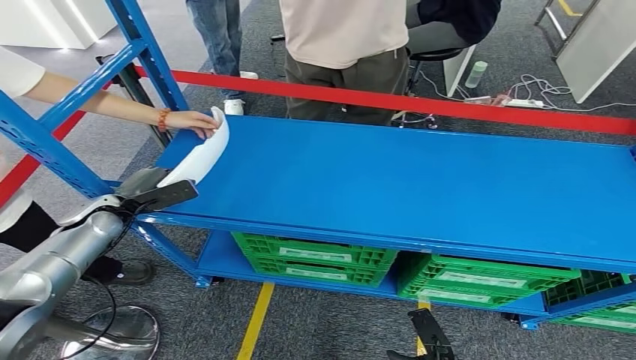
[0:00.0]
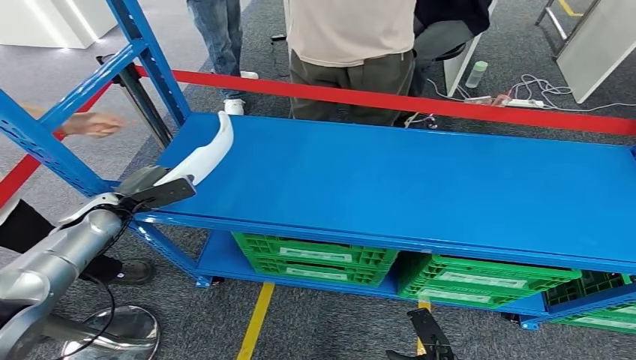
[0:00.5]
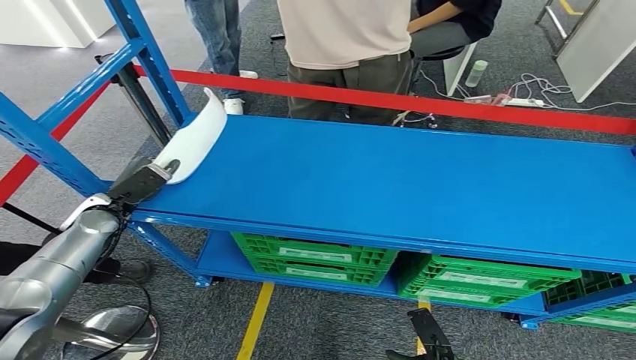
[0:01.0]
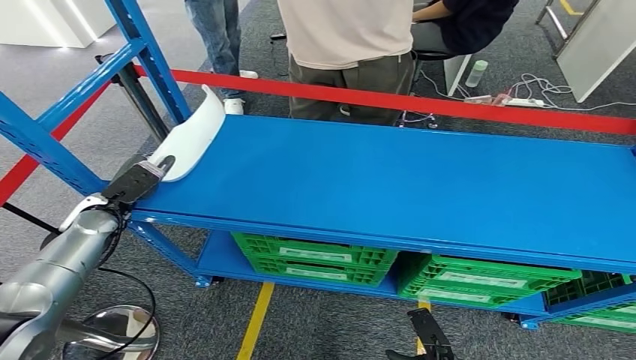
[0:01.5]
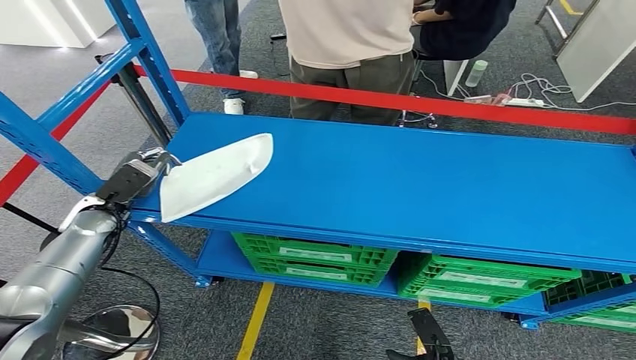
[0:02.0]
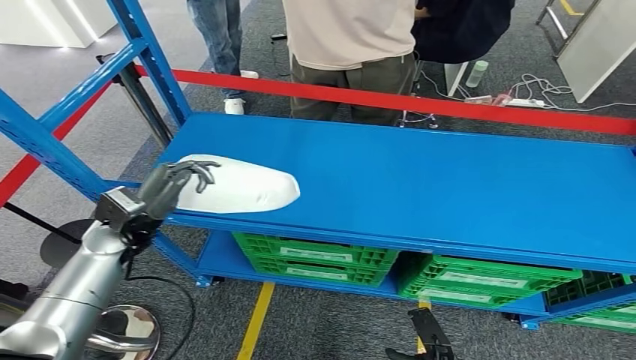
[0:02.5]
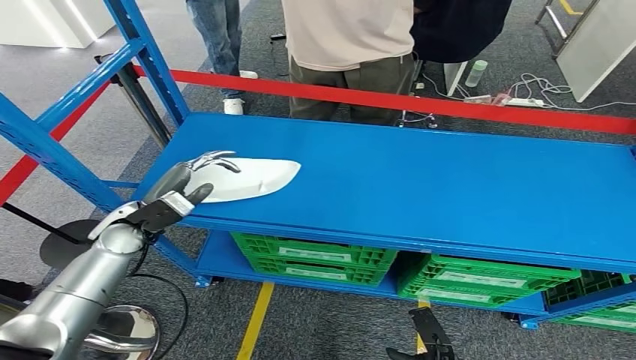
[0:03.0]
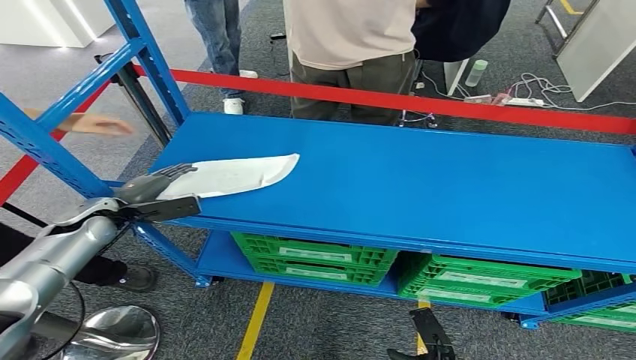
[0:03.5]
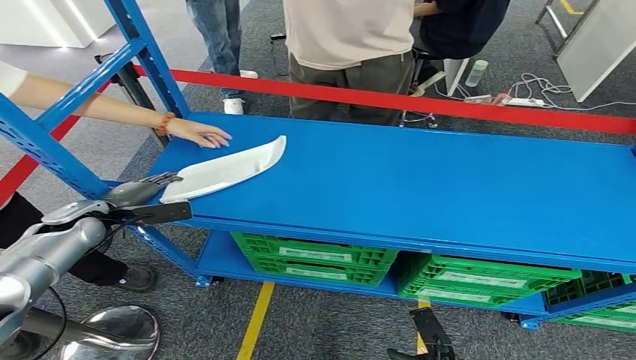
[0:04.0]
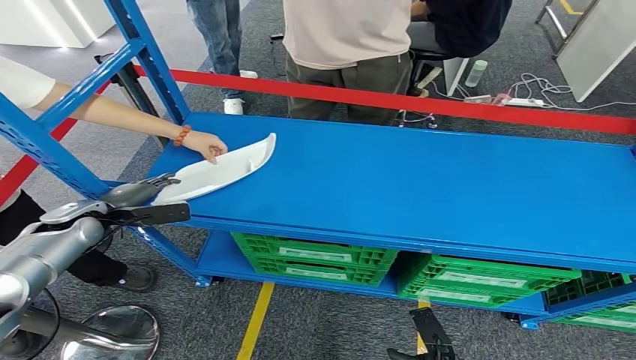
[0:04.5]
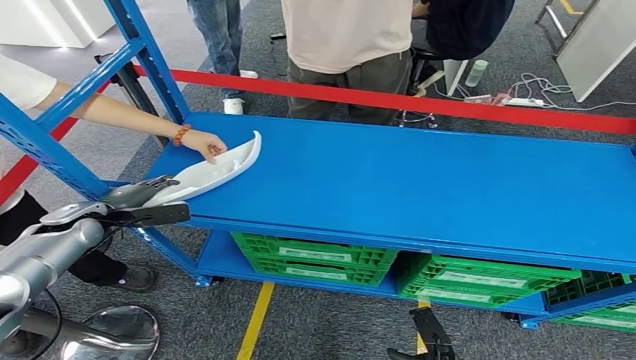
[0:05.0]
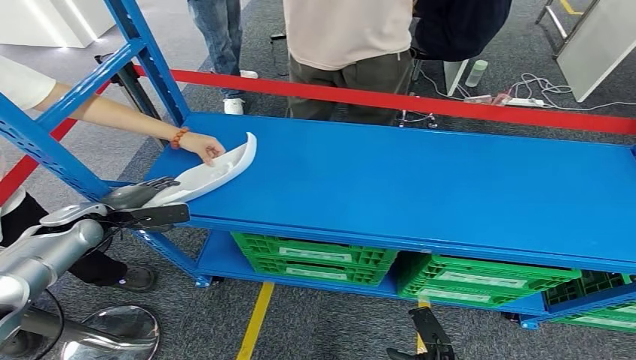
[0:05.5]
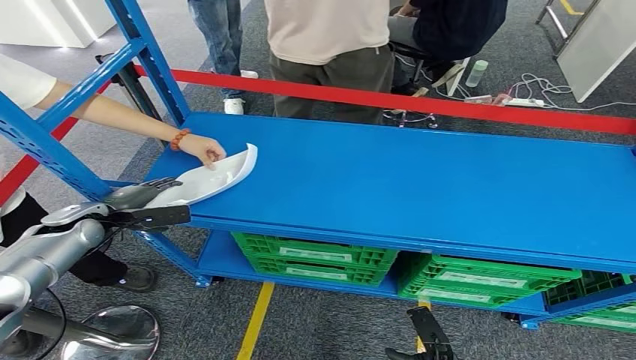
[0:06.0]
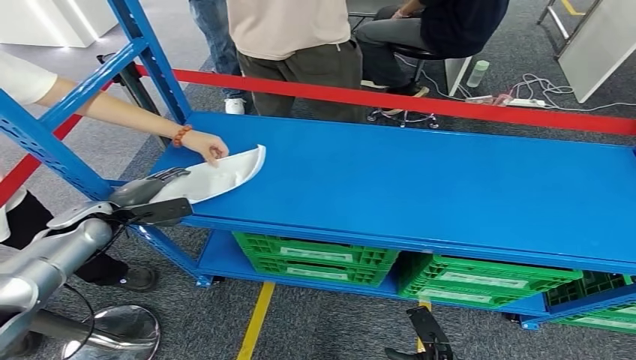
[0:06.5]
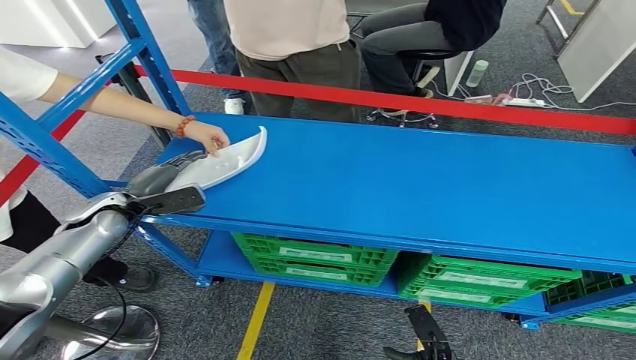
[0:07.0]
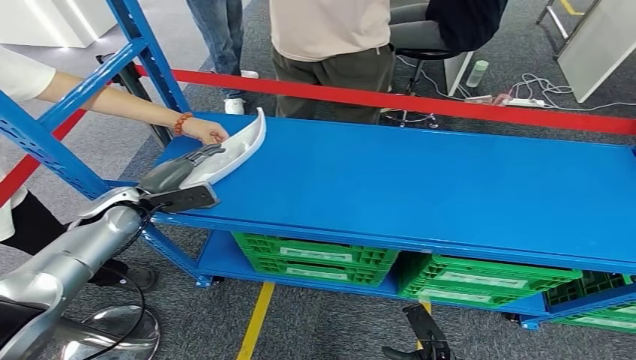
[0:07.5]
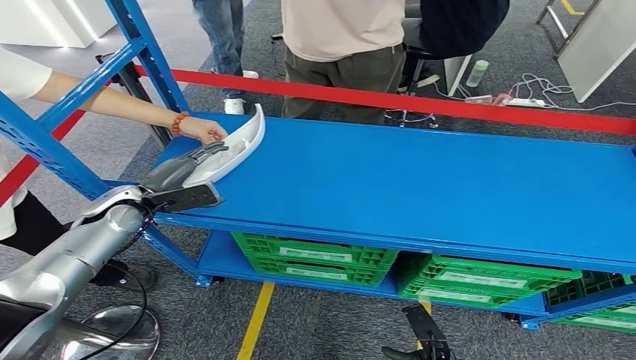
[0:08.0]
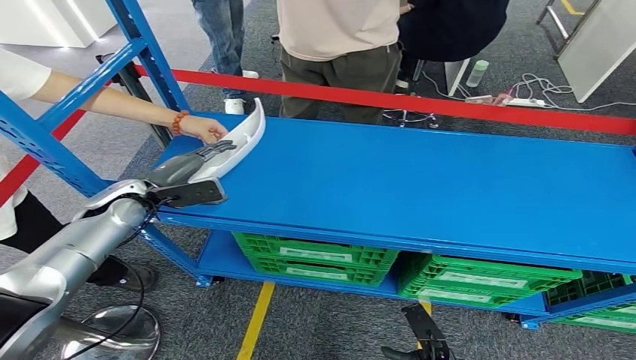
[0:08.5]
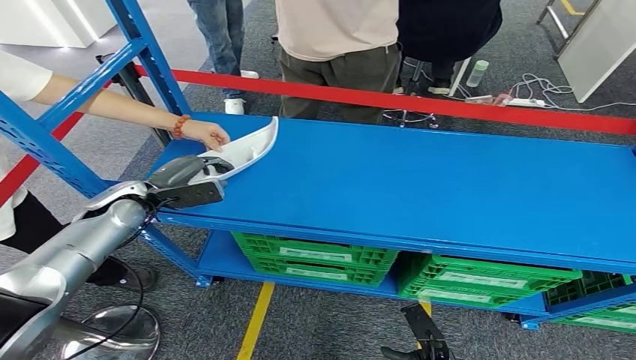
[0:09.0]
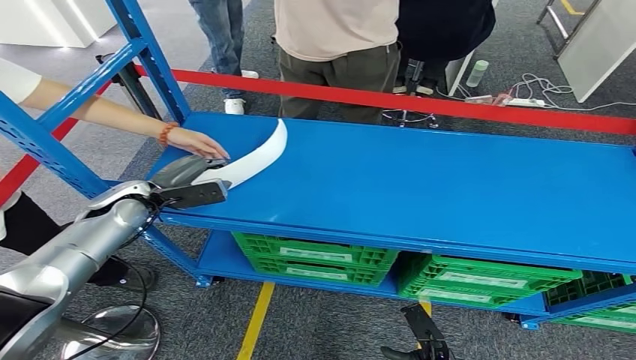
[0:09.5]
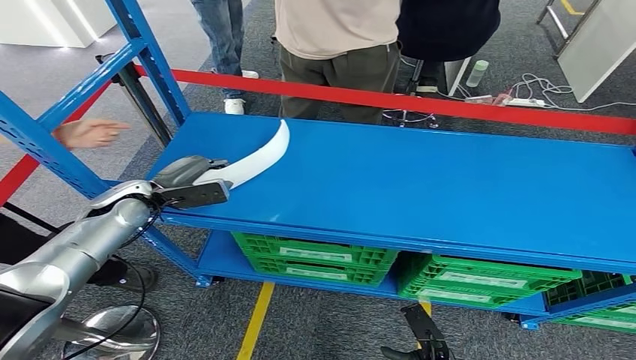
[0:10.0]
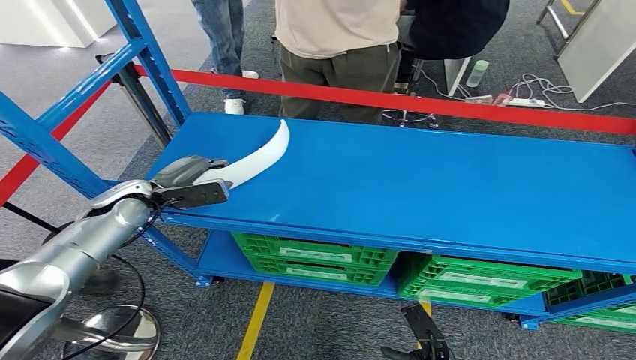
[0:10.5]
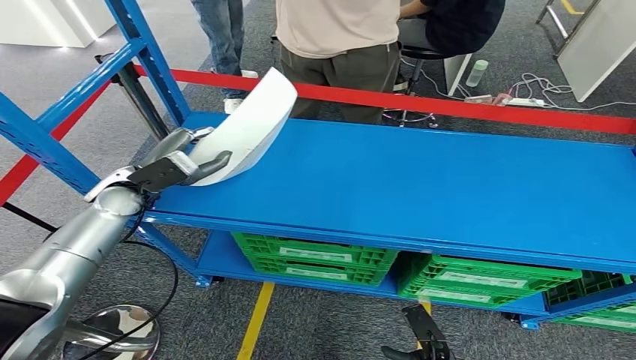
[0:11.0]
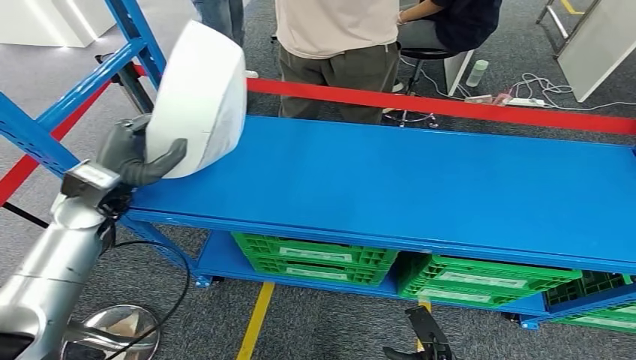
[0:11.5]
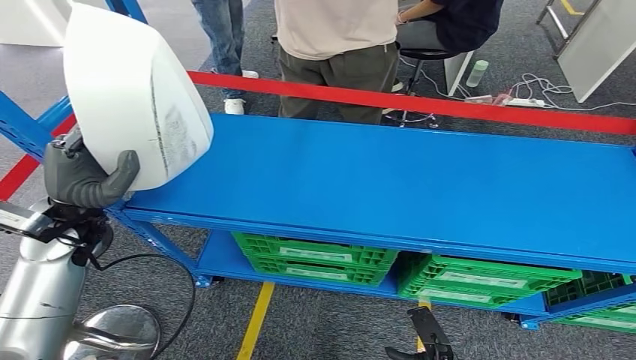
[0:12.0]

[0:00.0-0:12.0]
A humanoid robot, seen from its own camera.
Step, 0:00.0 to 0:12.0: Pick up the small component from the shelf.
0:04.0 to 0:06.0: Neither hand changes place.
0:06.0 to 0:08.0: The left hand is displaced to the right by some 10 cm.
0:08.0 to 0:10.0: The hands move only a little.
